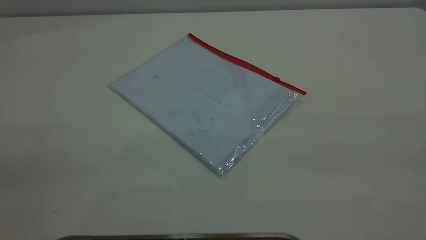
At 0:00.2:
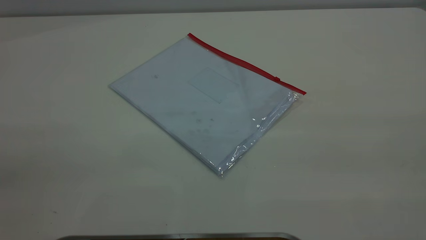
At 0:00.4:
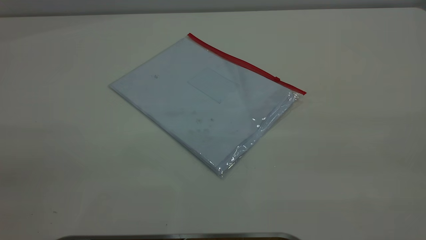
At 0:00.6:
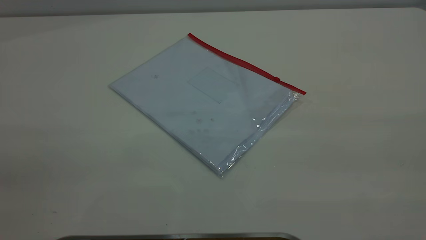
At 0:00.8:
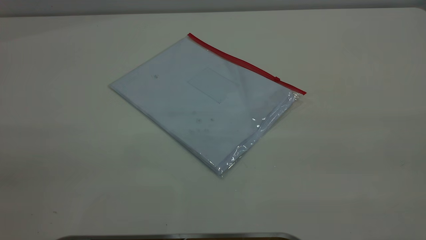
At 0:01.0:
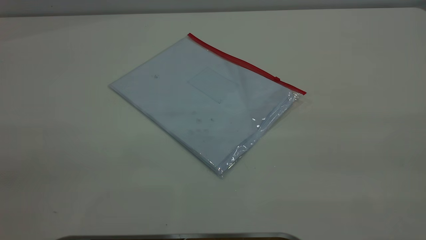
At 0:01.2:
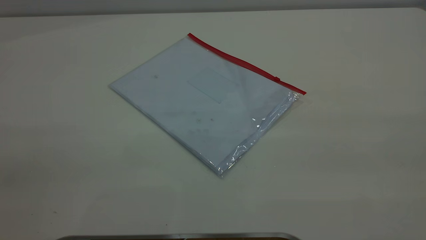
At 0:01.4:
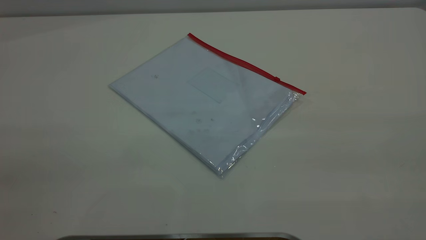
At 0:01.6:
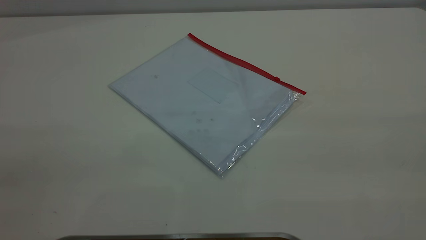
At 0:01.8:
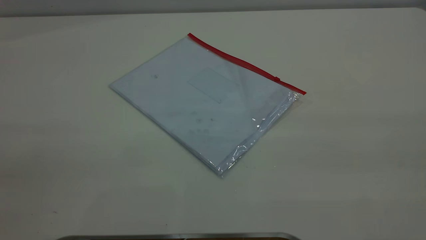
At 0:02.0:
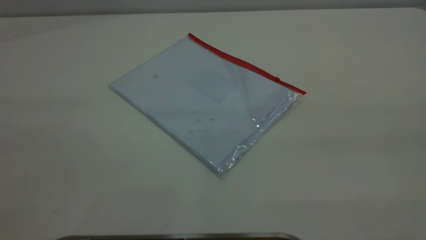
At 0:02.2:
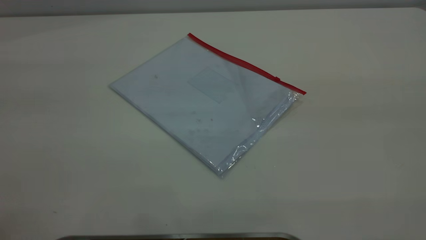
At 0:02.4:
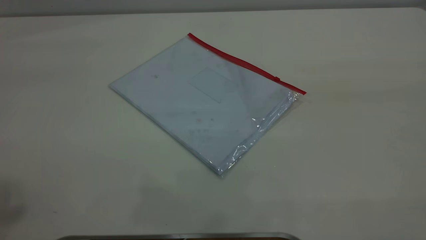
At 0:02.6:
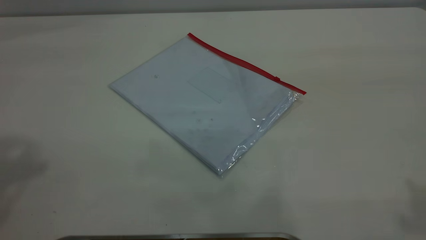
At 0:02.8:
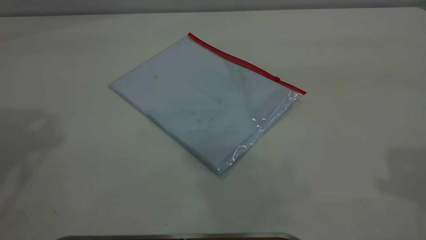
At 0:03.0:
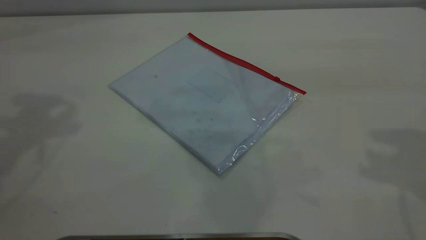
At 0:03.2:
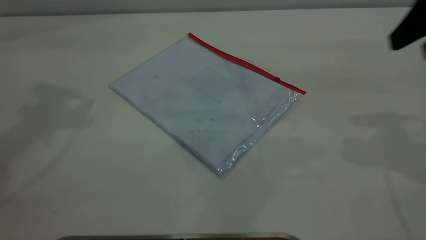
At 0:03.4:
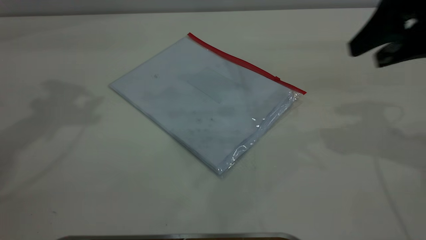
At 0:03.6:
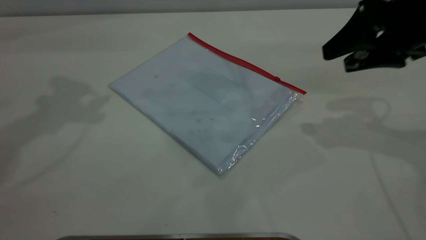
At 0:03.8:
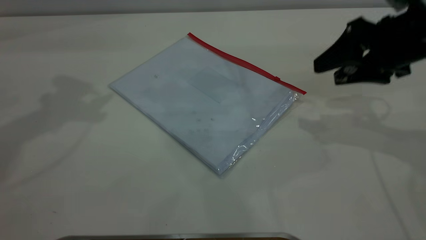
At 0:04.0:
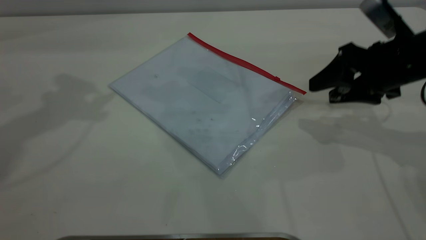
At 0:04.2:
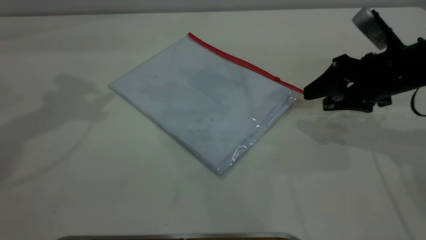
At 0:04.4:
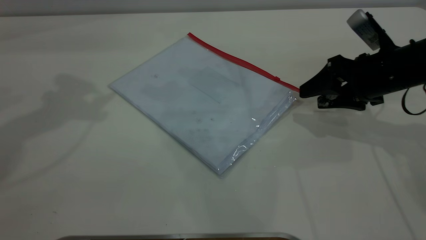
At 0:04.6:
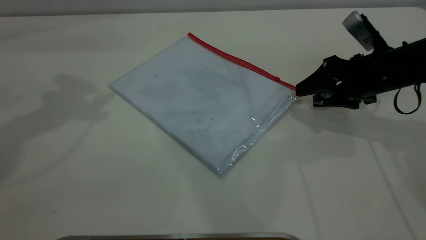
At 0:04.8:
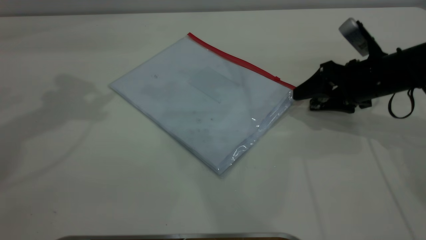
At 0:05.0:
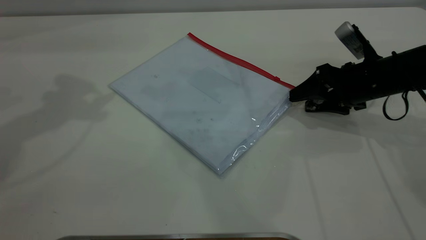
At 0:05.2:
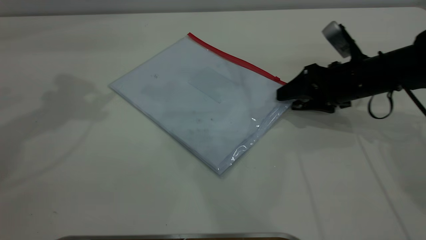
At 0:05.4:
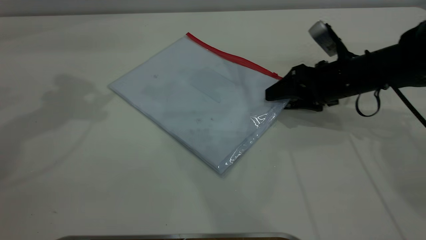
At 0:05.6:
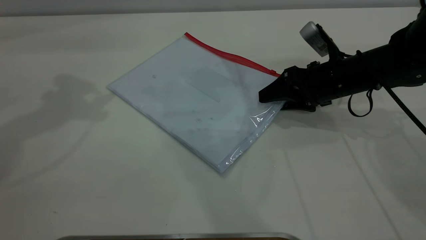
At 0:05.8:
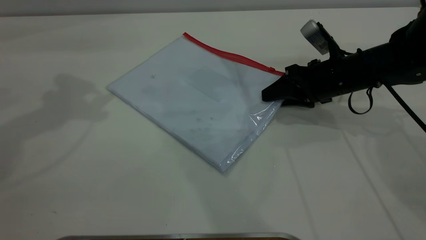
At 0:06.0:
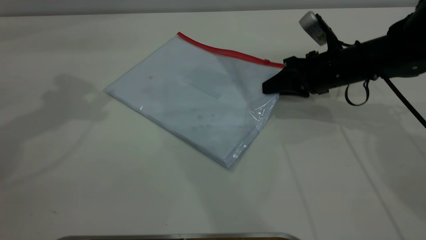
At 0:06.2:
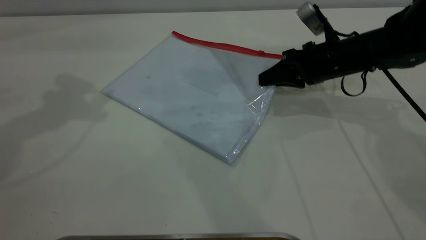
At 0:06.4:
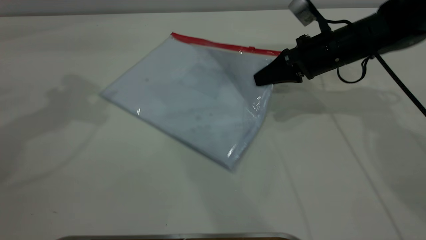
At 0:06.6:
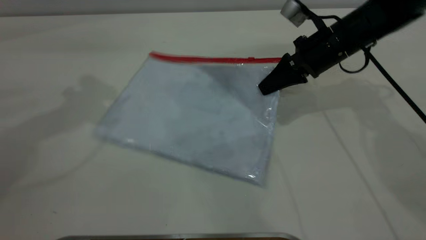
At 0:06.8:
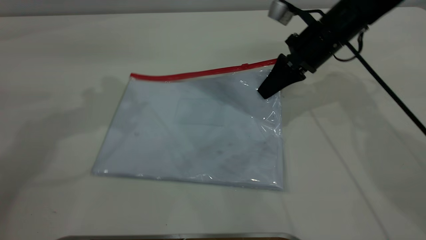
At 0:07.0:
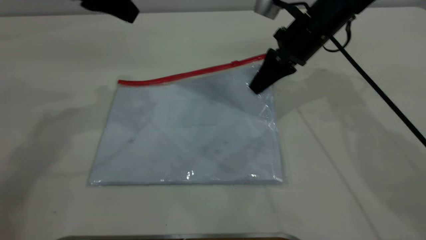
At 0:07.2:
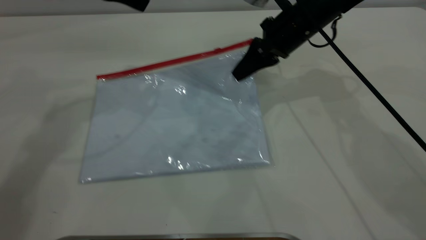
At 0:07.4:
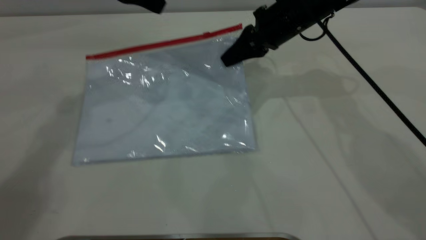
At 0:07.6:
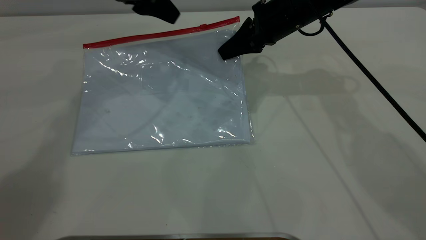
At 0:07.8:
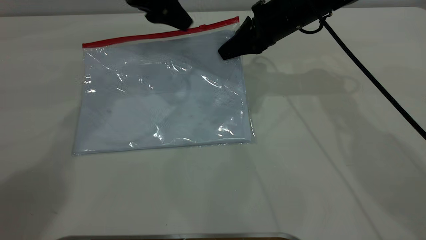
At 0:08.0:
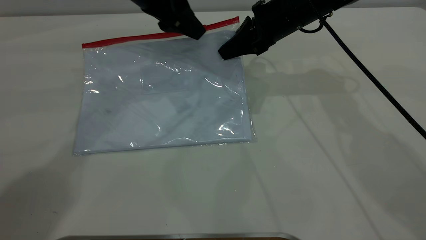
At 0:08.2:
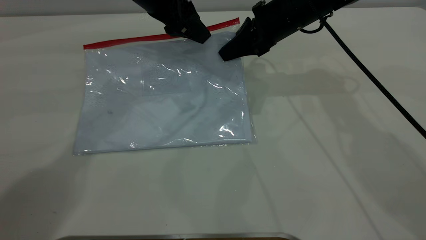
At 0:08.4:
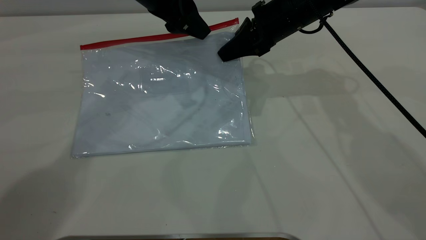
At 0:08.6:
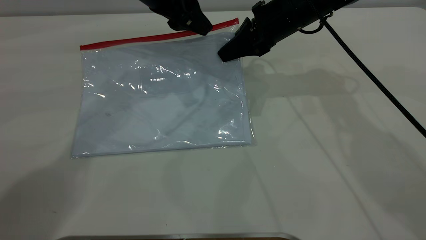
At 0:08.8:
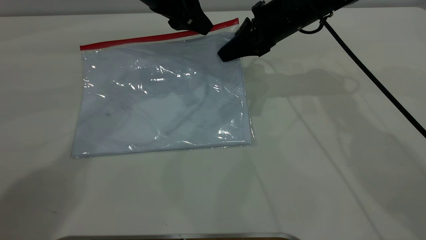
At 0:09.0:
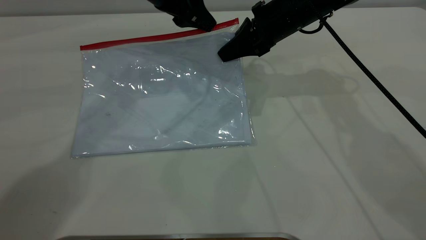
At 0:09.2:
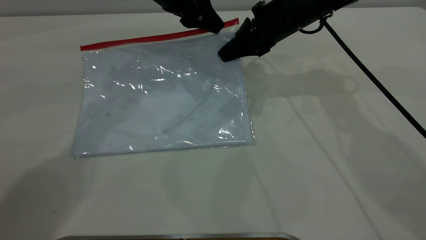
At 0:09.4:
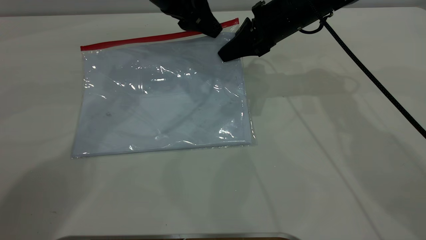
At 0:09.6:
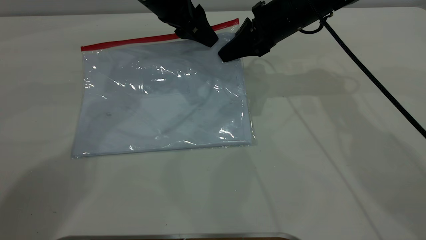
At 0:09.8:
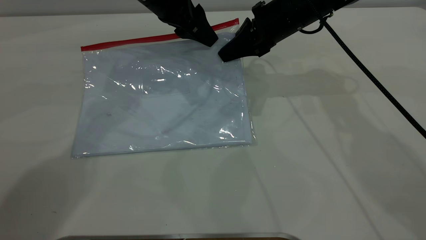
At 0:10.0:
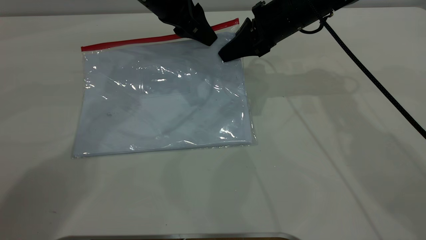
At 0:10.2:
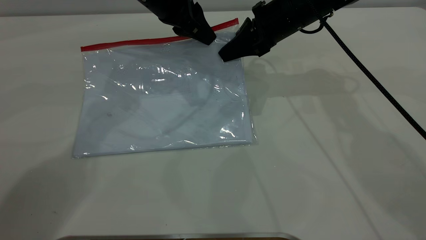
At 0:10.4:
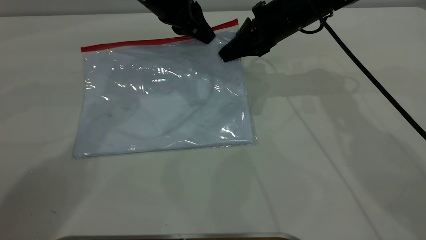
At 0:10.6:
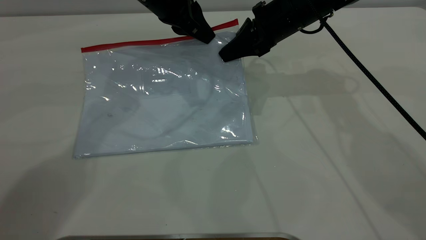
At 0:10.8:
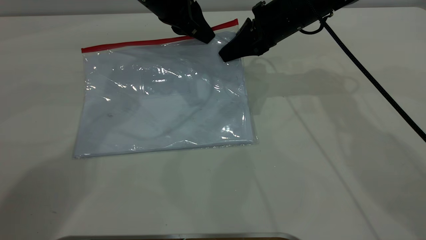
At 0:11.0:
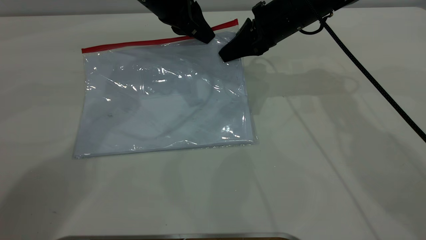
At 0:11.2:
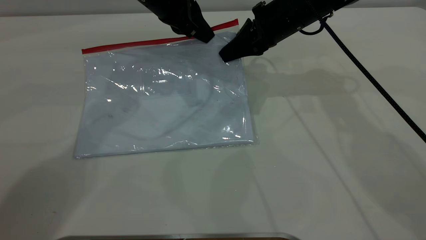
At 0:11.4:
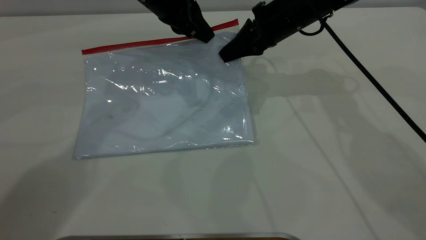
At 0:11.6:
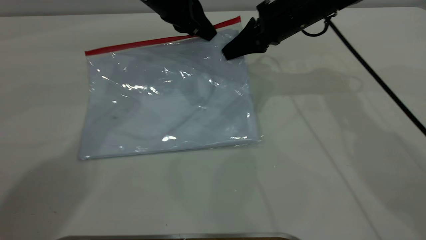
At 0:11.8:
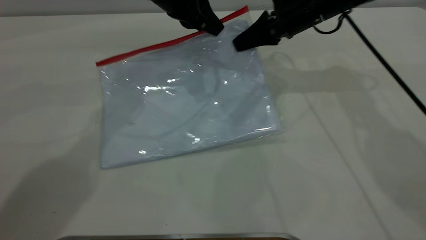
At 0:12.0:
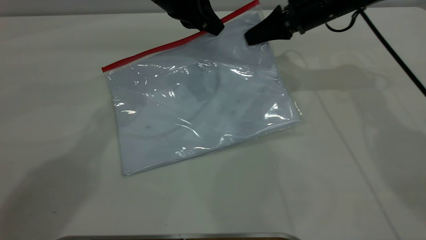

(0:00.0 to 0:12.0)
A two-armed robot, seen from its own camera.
Step, 0:00.0 - 0:07.2: Pick up the transparent plastic bag with the right gripper.
0:00.0 - 0:01.6: Neither gripper changes place.
0:03.0 - 0:04.4: The right gripper moves downward and forward, some 25 cm.
0:04.4 - 0:06.0: The right gripper is displaced to the left and forward by some 10 cm, and closes up.
0:06.0 - 0:07.6: The right gripper moves to the left, upward and forward, roughly 10 cm. The left gripper goes approximately 15 cm to the right, downward and forward.
0:07.6 - 0:09.0: The left gripper is displaced to the right by roughly 5 cm.
0:09.0 - 0:10.4: The left gripper closes up.
0:10.4 - 0:12.0: The right gripper is displaced to the right by approximately 5 cm.

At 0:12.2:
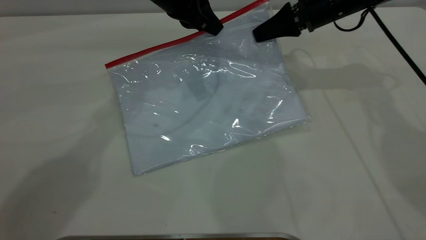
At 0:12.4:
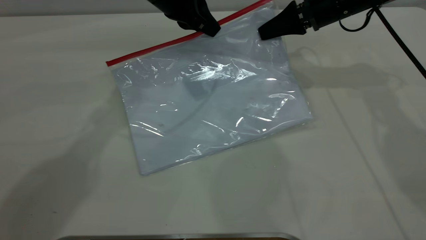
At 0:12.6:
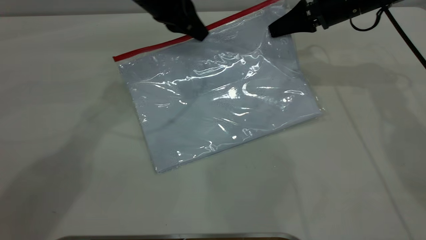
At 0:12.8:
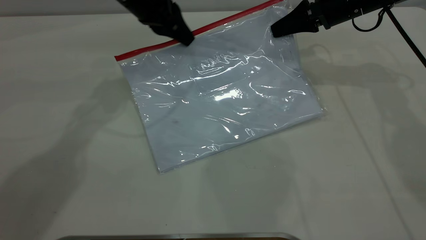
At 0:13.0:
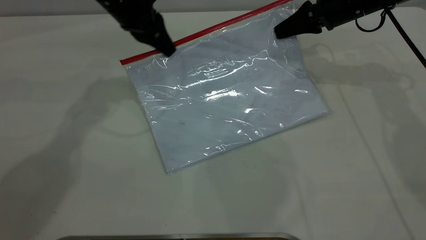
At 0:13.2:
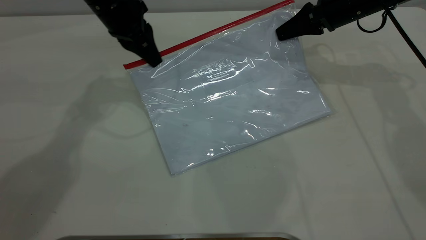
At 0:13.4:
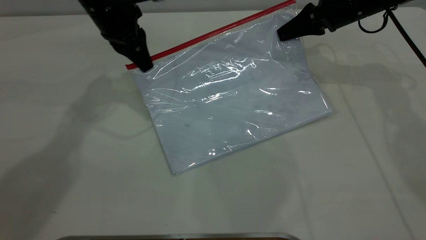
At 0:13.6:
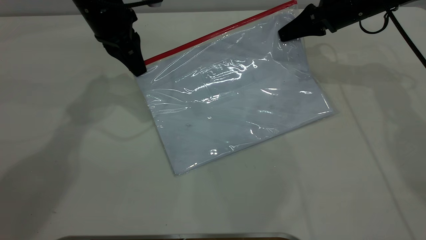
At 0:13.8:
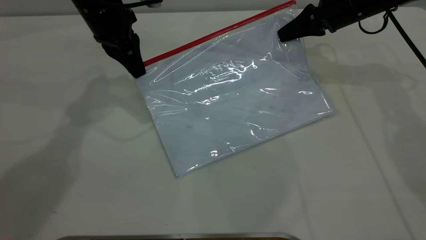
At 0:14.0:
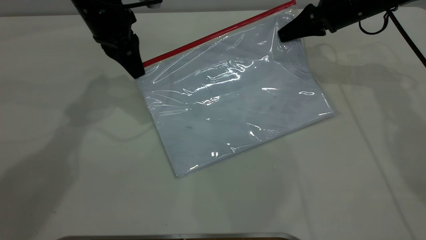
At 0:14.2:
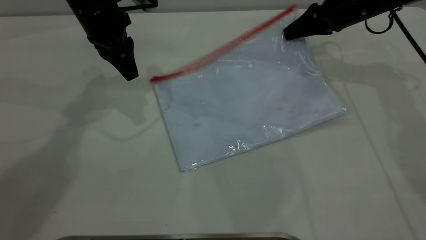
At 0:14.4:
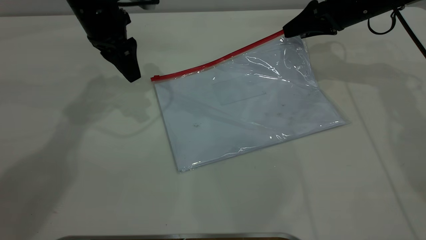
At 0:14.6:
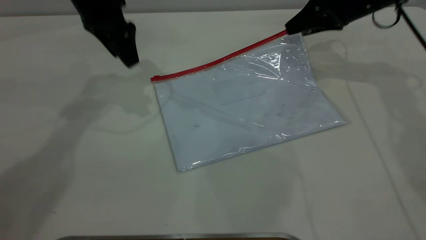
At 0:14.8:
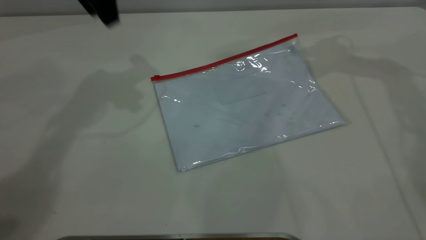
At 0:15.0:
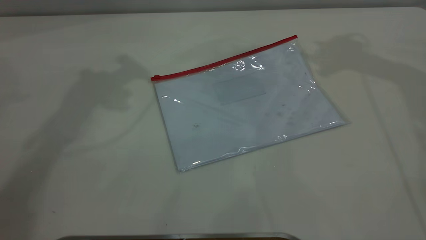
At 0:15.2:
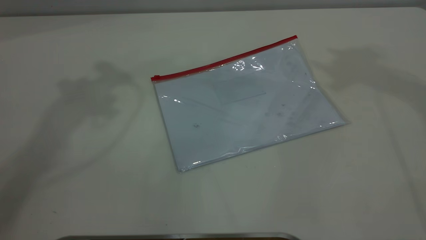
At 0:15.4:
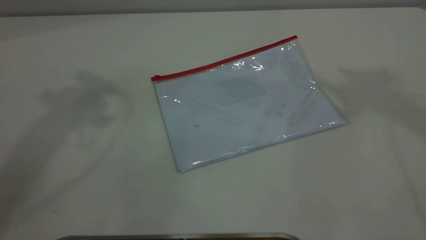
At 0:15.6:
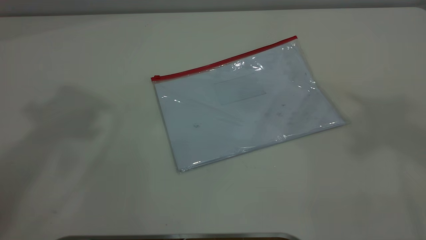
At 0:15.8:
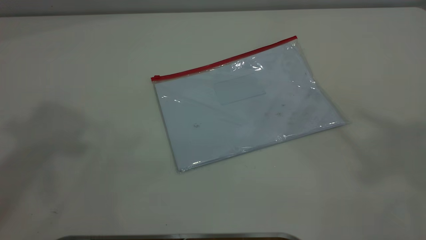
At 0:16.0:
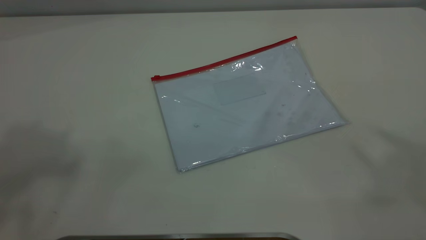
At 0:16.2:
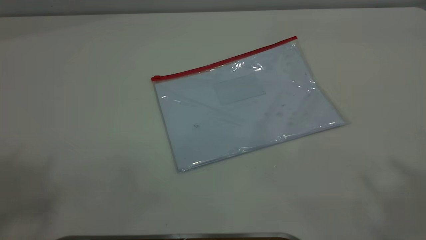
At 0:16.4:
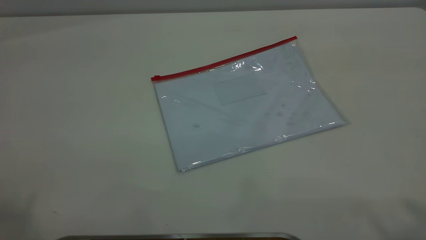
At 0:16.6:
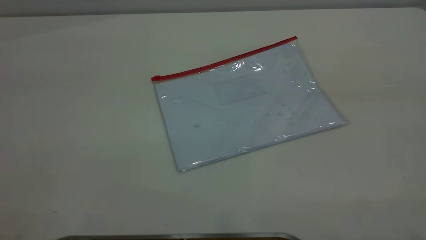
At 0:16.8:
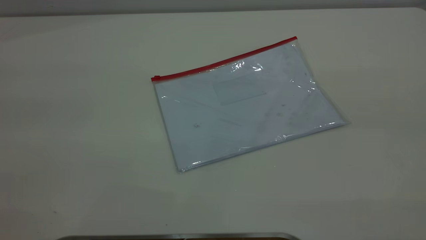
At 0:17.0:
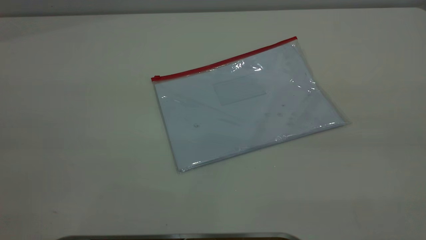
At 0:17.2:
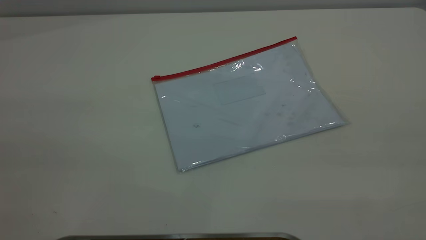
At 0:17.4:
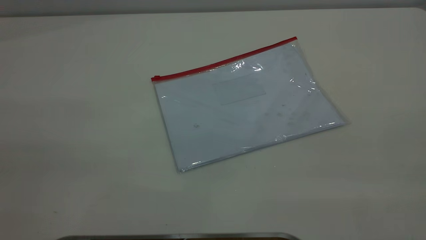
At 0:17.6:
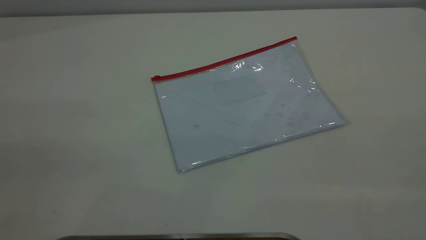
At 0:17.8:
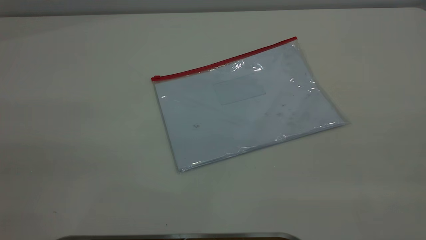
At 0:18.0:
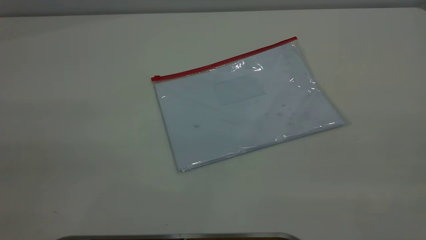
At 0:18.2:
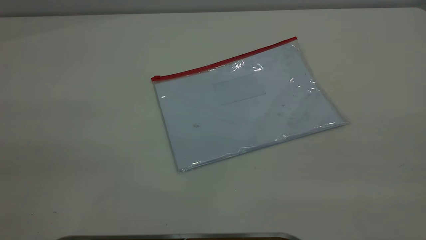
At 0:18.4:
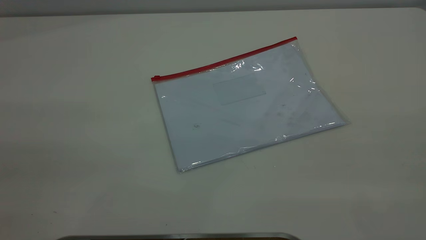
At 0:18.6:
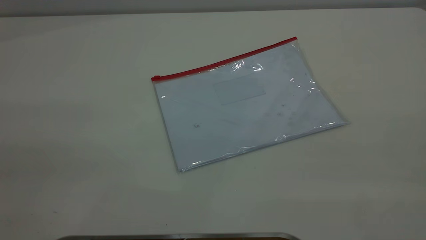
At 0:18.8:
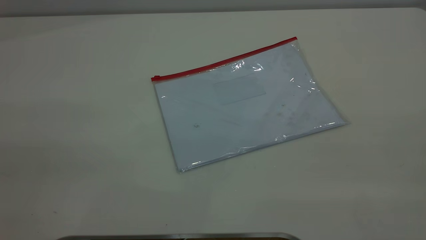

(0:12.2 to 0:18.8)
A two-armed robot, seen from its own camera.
Step, 0:14.2 - 0:15.2: Place the transparent plastic bag.
0:12.2 - 0:13.8: The left gripper is displaced to the left by about 10 cm.
0:13.8 - 0:15.4: The grippers both shift upward by roughly 40 cm. The right gripper opens up. The left gripper opens up.
